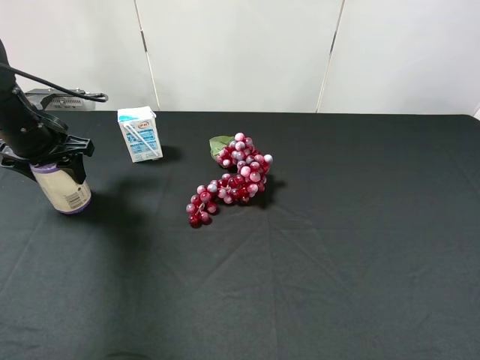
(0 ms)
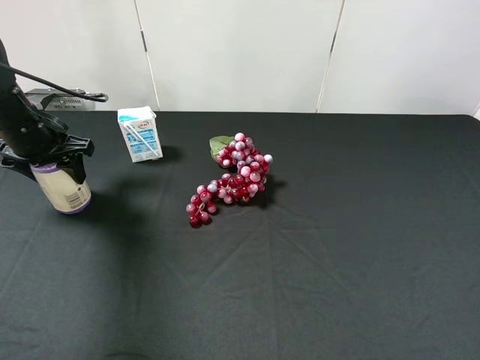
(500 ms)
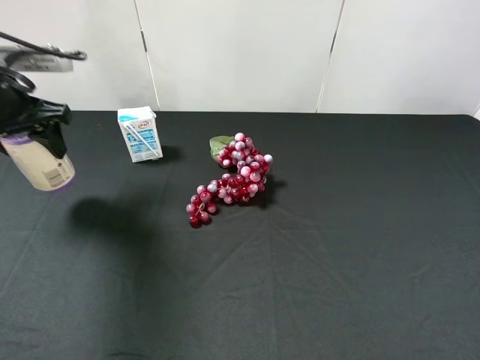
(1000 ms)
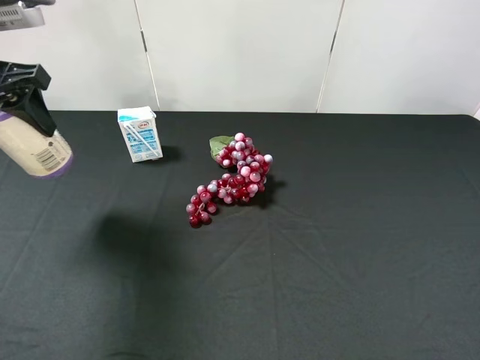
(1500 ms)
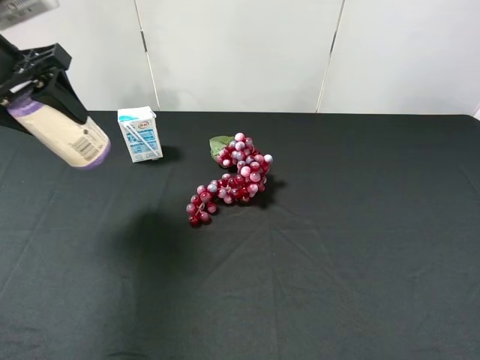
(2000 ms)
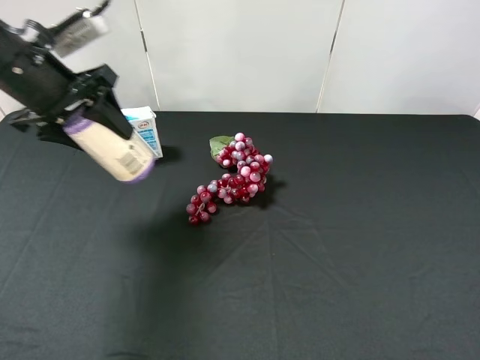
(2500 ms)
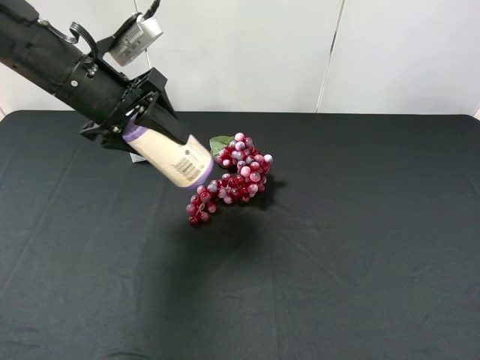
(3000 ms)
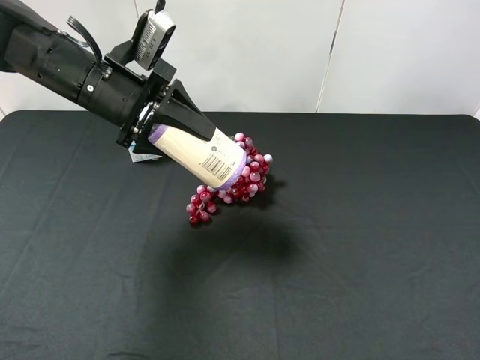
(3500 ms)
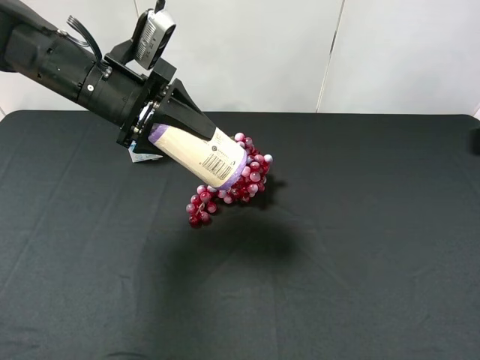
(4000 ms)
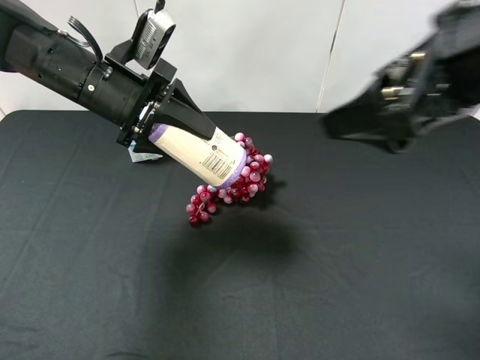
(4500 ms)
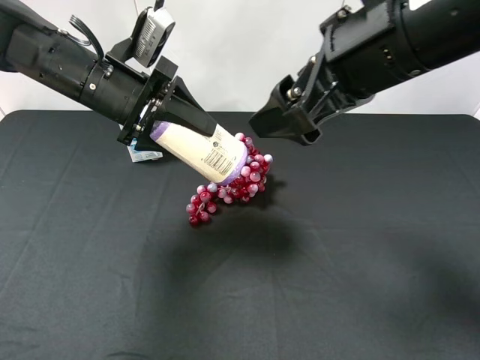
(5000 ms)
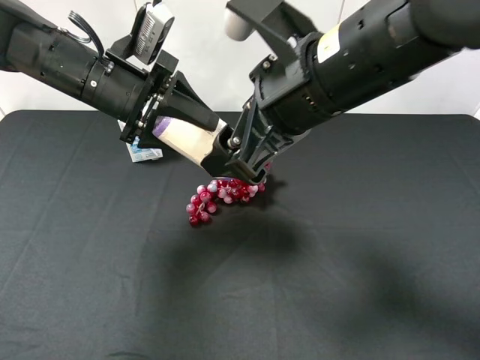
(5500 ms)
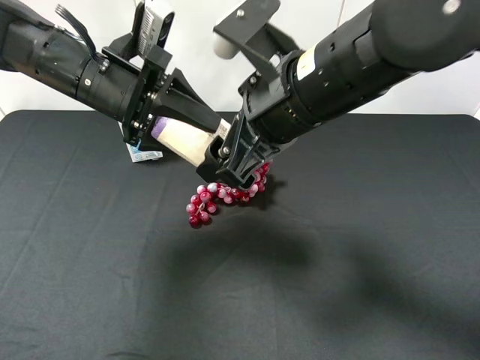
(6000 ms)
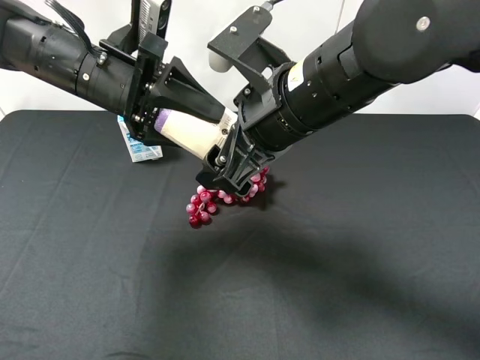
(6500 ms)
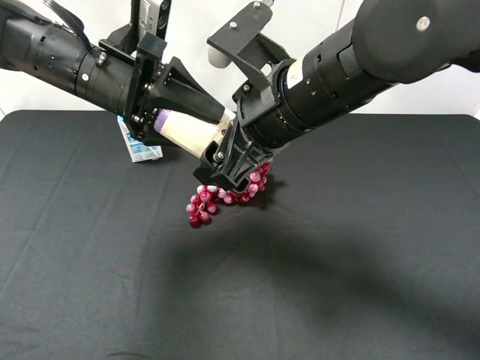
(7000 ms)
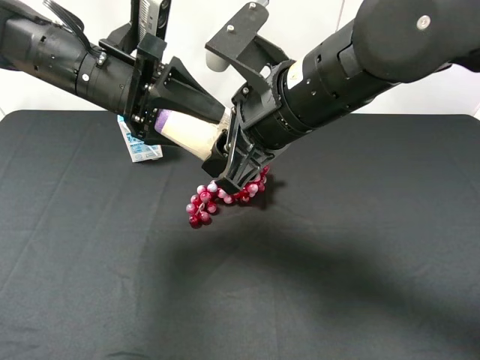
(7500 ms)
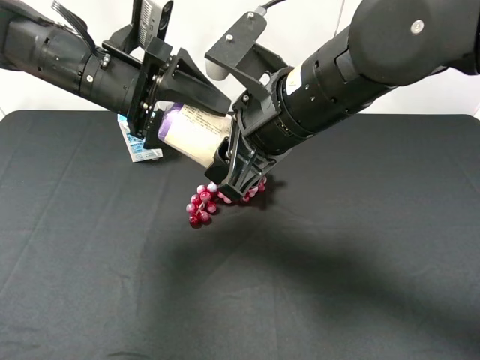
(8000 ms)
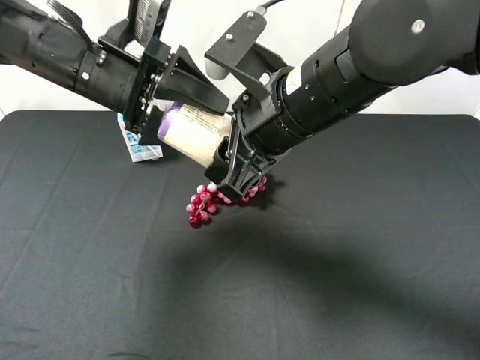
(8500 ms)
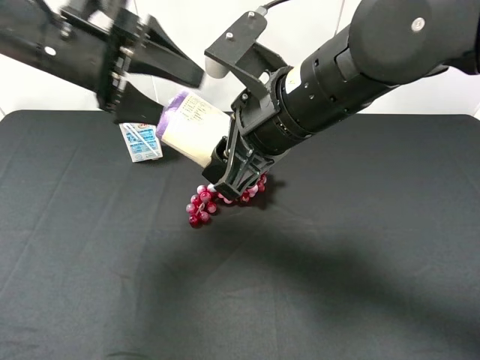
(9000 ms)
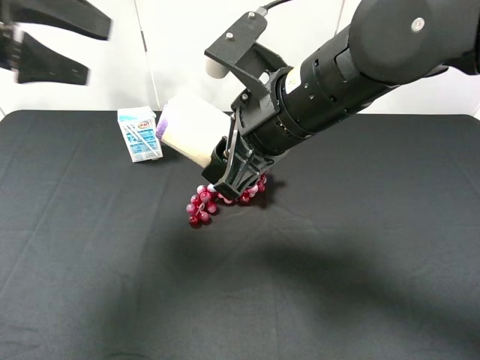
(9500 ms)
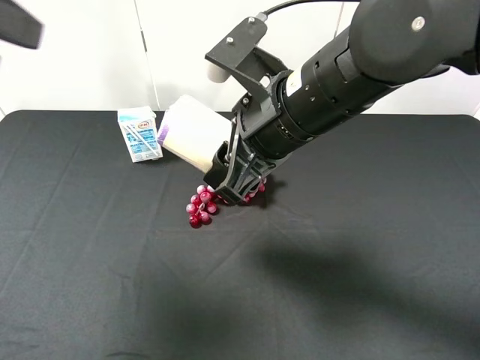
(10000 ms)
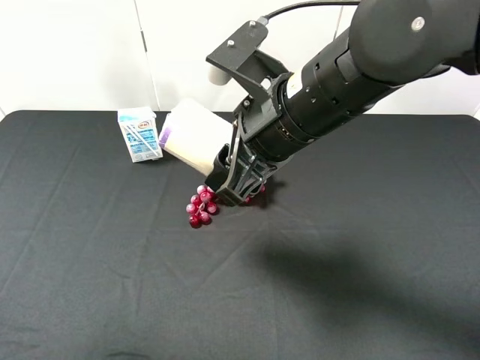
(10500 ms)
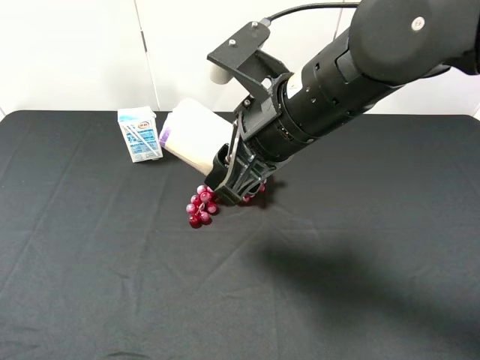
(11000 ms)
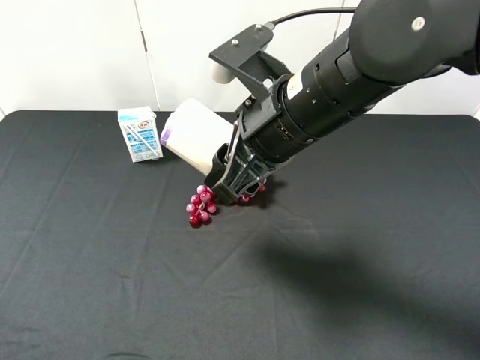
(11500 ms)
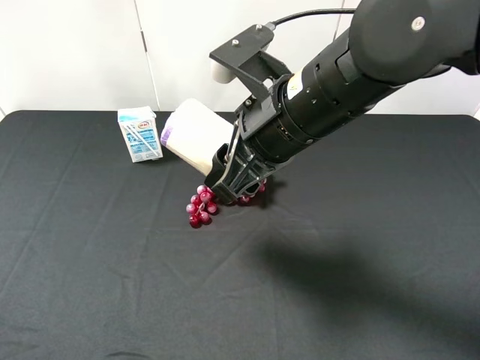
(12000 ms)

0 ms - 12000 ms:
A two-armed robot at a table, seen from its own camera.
Task of the whole recording: use the left gripper to pick up the item and transfer it from the left gripper to the right gripper.
0 ms - 2000 ms: The left gripper moves upward, approximately 10 cm.
2000 ms - 4000 ms: The left gripper goes roughly 15 cm to the right and downward. The right gripper moves forward and upward, some 10 cm.
4000 ms - 6000 ms: The right gripper shifts some 25 cm to the left and forward.
6000 ms - 8000 ms: The left gripper opens, while the right gripper closes its fingers.
8000 ms - 10000 ms: The left gripper travels upward, to the left and backward by approximately 25 cm.
10000 ms - 12000 ms: The left gripper is displaced backward and downward by approximately 20 cm.

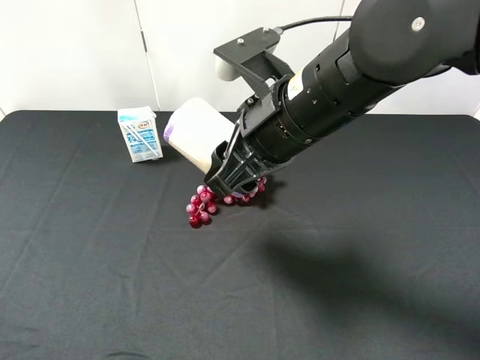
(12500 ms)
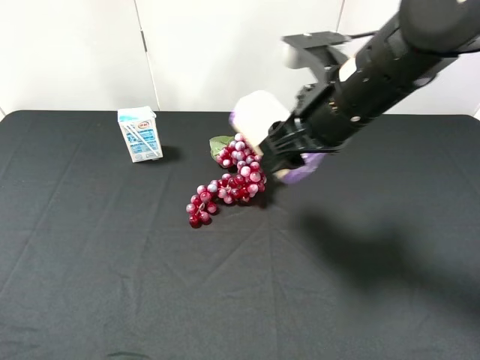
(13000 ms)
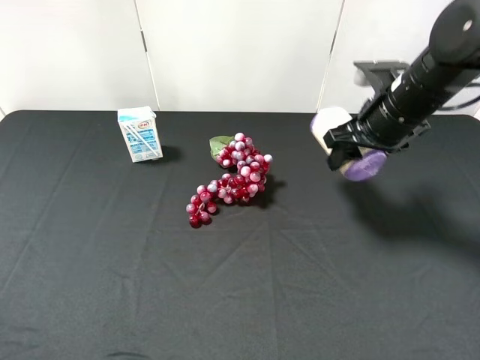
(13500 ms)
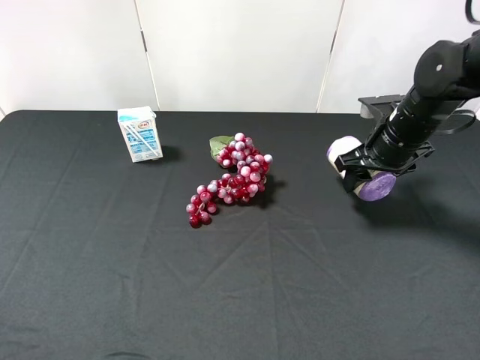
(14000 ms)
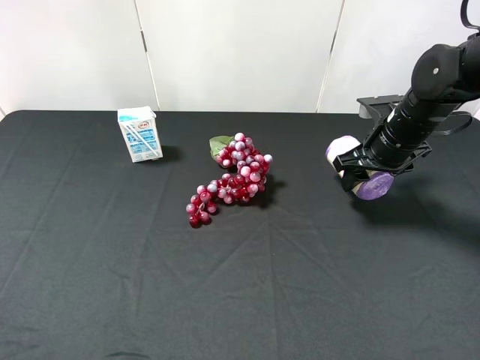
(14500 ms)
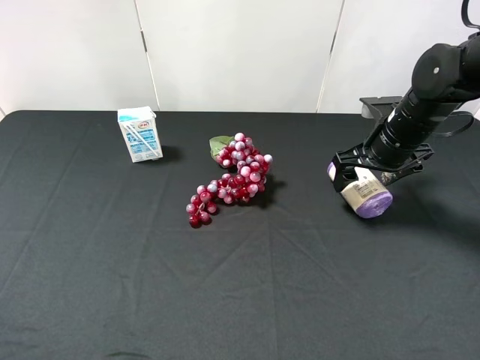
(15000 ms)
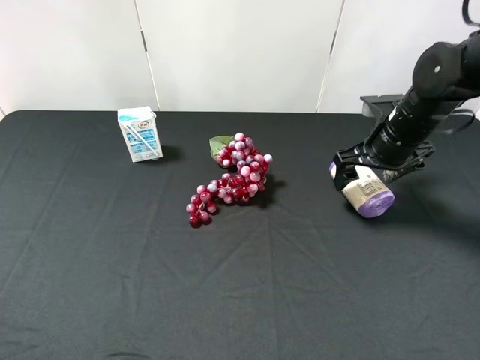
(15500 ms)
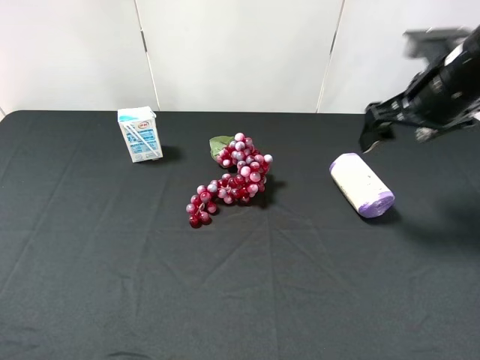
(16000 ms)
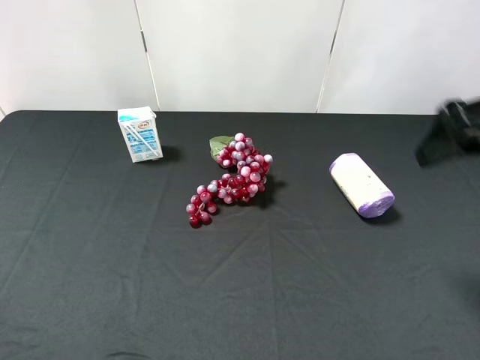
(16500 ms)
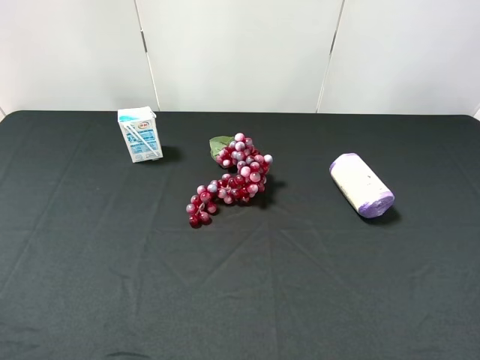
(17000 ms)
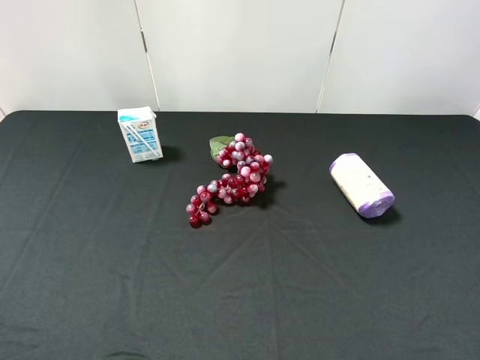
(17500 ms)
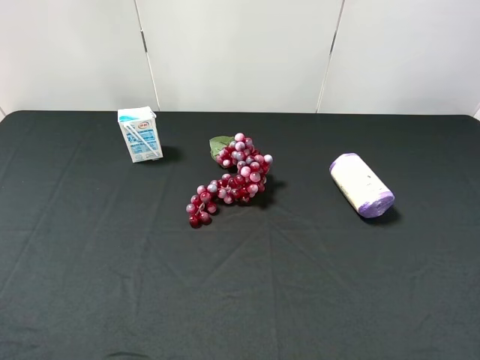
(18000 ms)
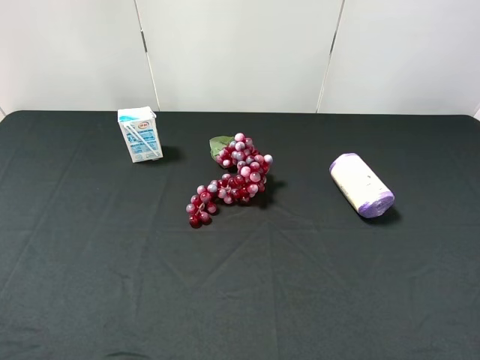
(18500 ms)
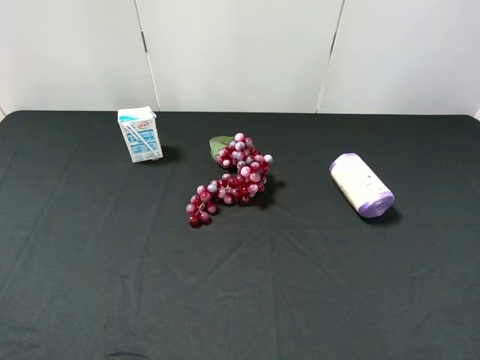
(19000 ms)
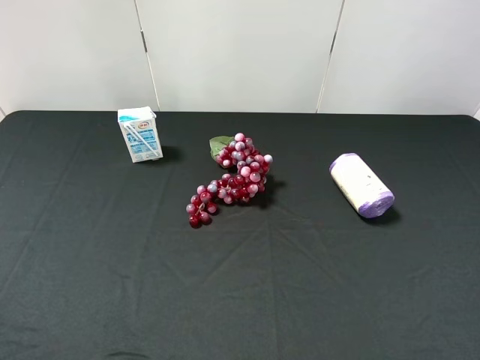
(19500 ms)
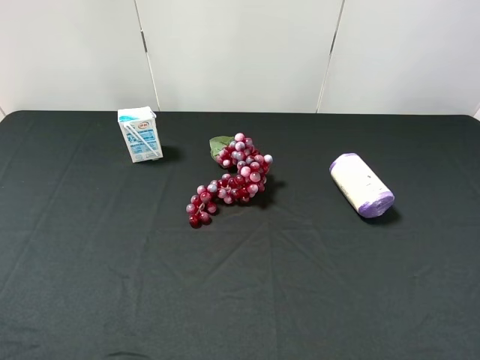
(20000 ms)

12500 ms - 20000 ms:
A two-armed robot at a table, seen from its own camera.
Task of the whole recording: use the left gripper to pick up the item and transfer it from the left gripper to the right gripper.
12500 ms - 14500 ms: The right gripper heads to the right, forward and downward, covering about 25 cm.
14500 ms - 16500 ms: The right gripper goes roughly 20 cm upward and backward, and opens.
16500 ms - 18000 ms: The right gripper heads backward, covering about 20 cm.
